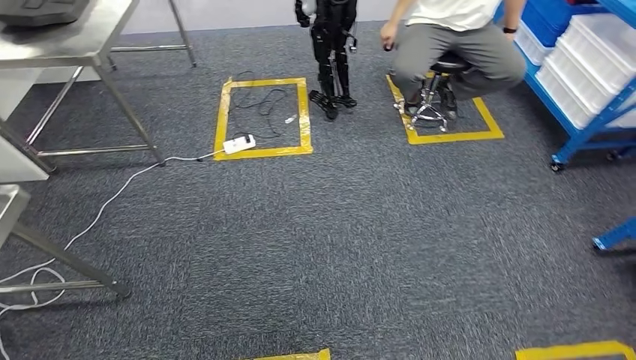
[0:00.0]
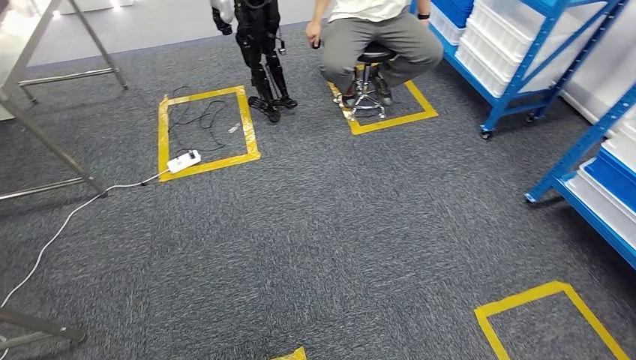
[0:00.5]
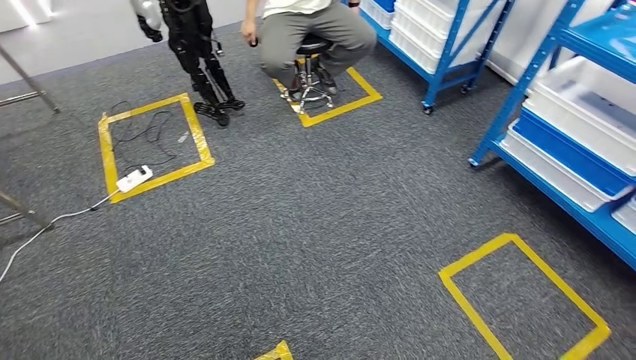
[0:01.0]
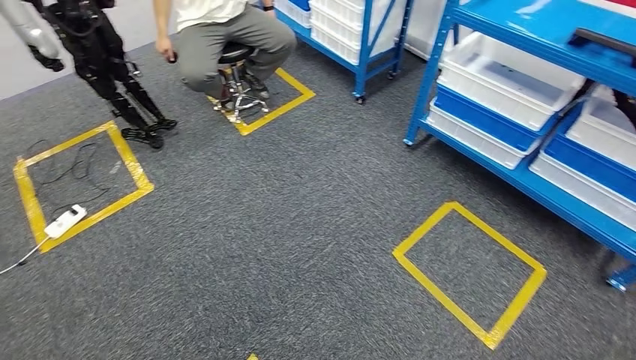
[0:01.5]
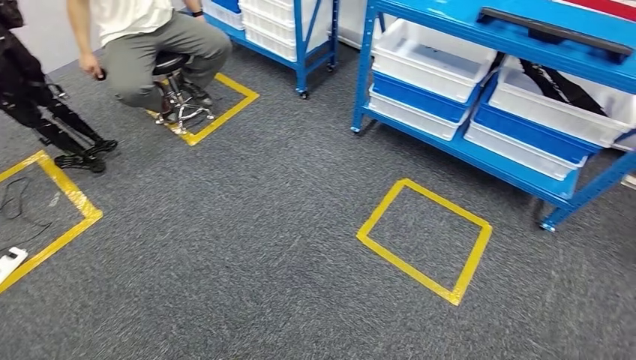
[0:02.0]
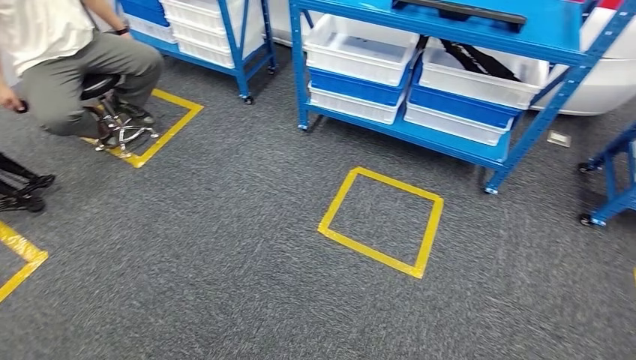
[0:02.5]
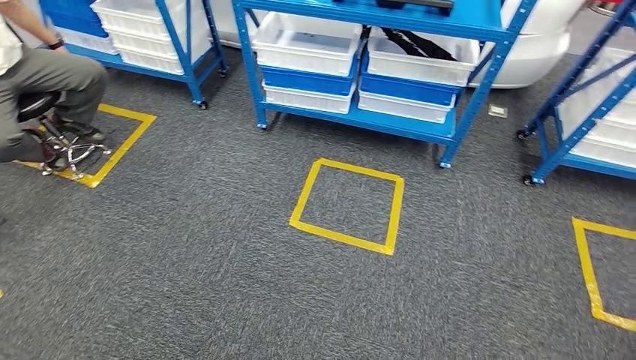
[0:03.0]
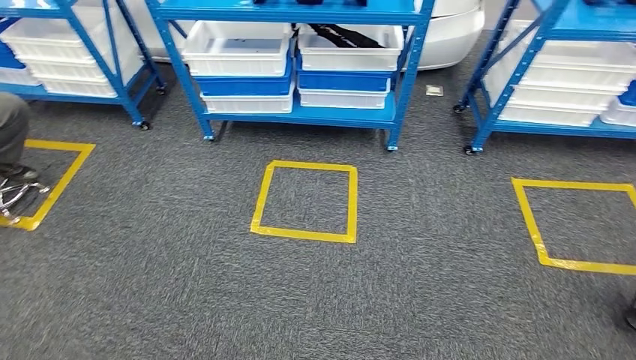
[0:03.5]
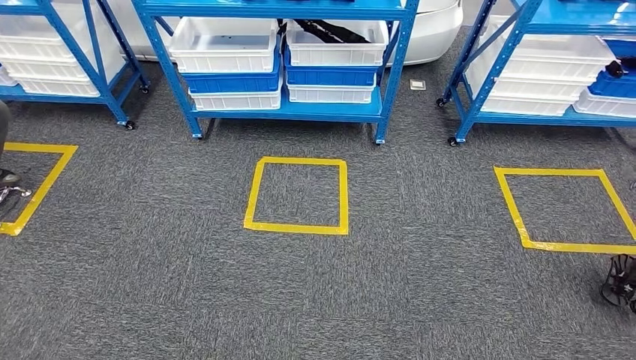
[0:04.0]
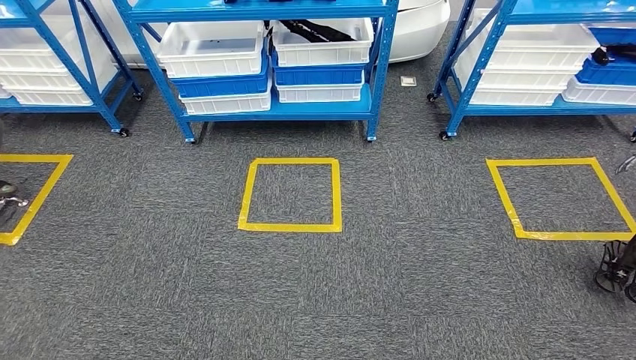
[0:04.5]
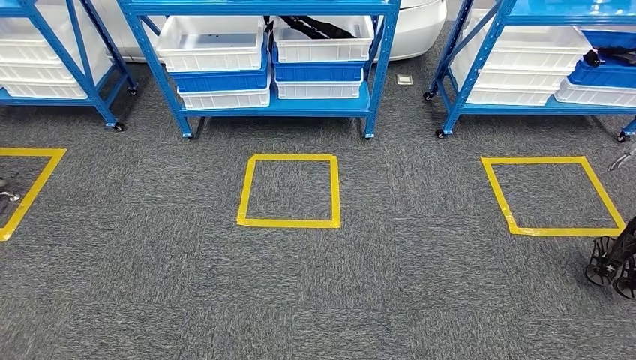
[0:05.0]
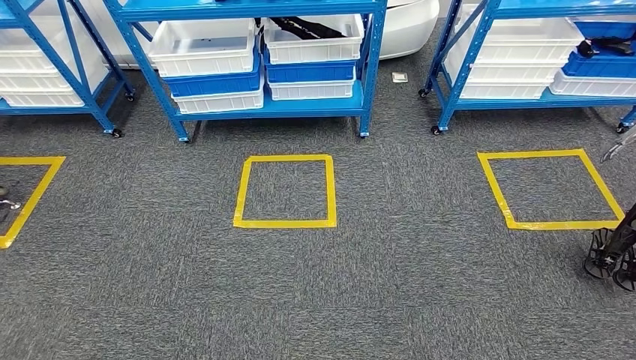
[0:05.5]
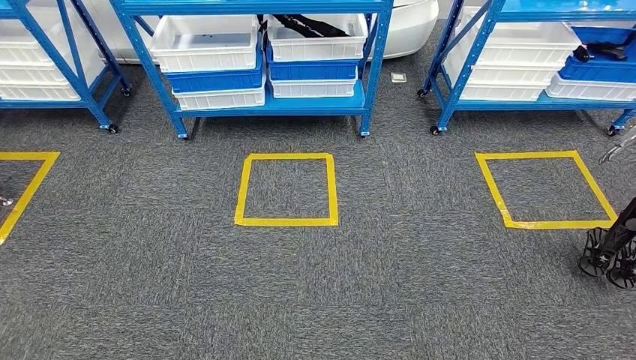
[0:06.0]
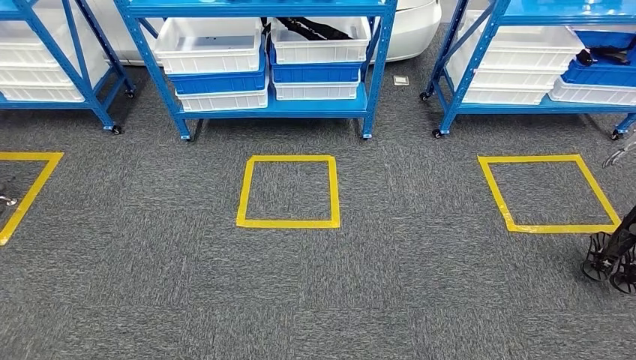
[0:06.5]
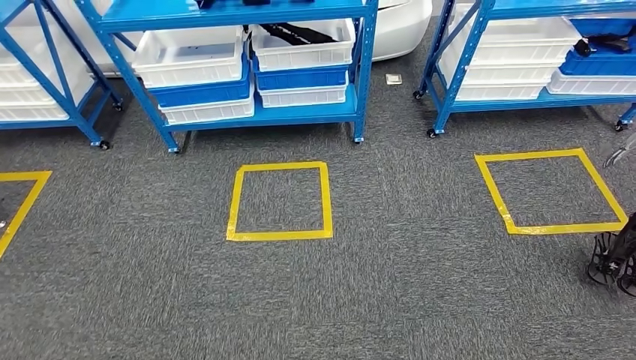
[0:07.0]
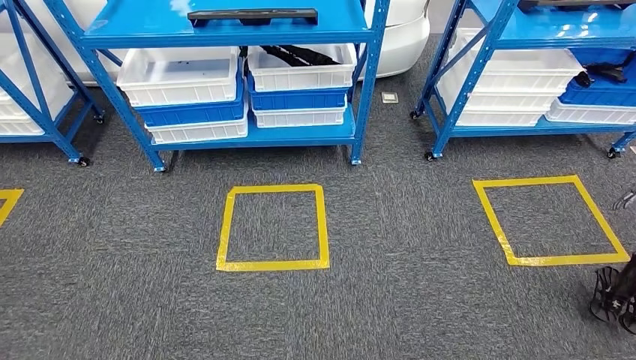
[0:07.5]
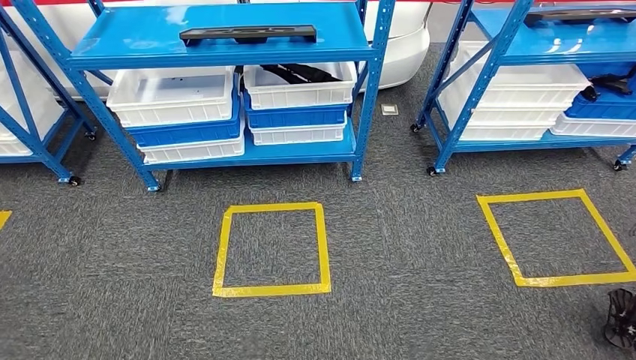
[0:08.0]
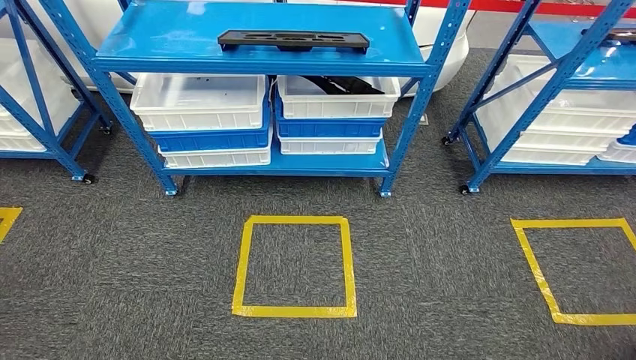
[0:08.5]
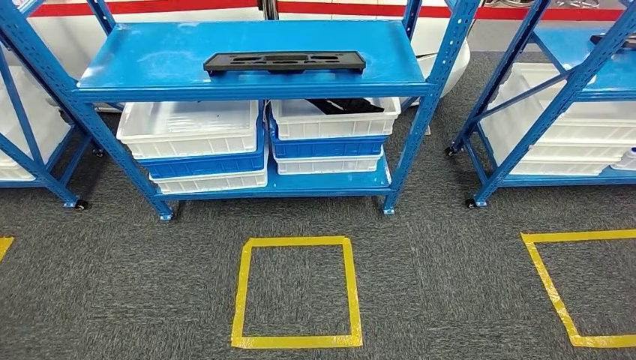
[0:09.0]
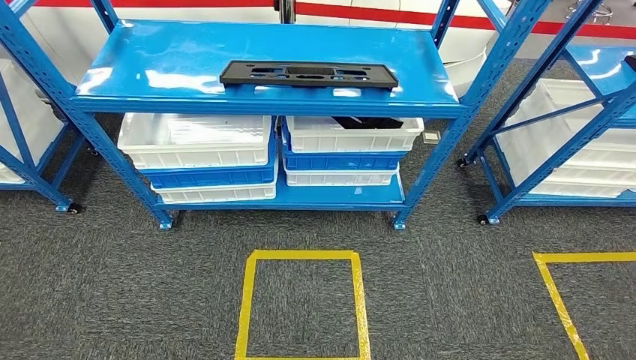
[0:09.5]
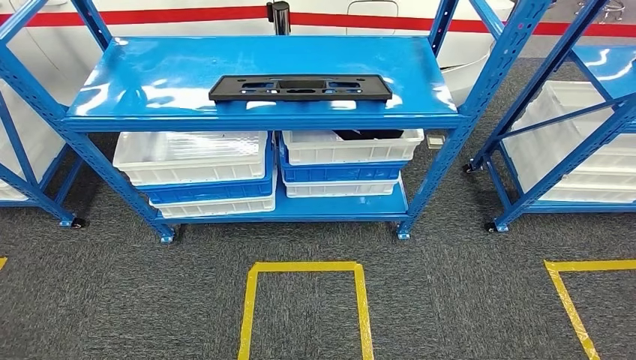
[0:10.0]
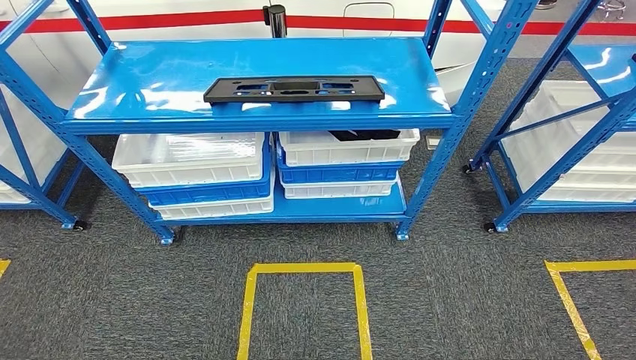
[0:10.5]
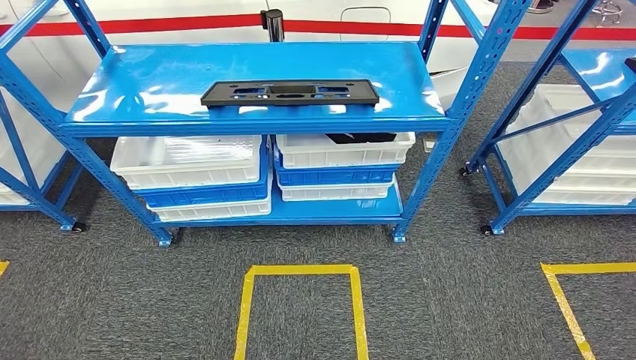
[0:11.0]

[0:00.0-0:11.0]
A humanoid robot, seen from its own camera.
Step, 0:00.0 to 0:11.0: Return to the initial position at the shelf.
